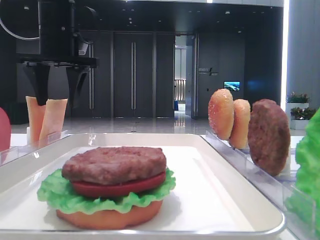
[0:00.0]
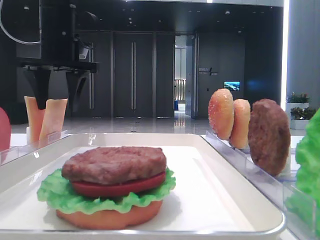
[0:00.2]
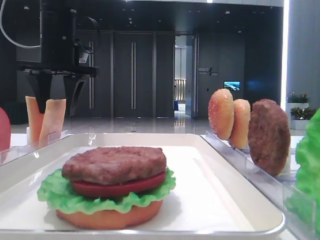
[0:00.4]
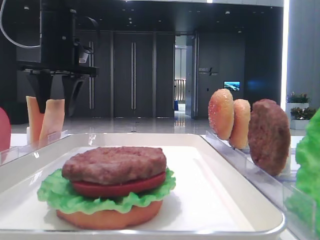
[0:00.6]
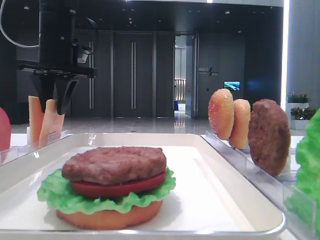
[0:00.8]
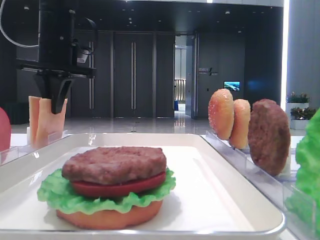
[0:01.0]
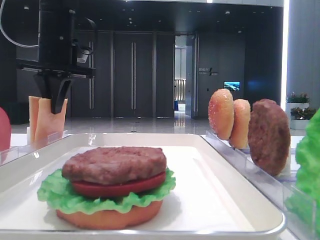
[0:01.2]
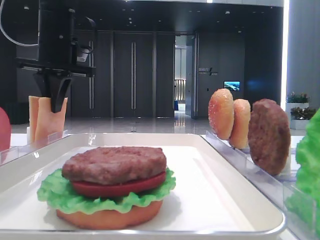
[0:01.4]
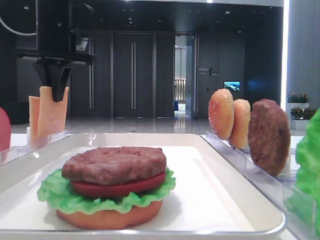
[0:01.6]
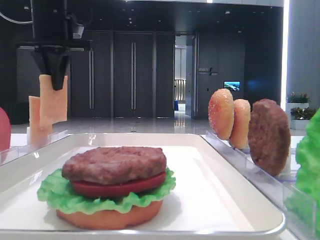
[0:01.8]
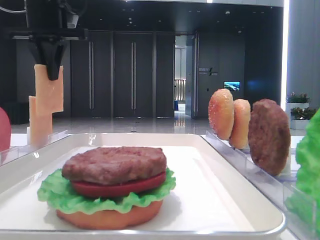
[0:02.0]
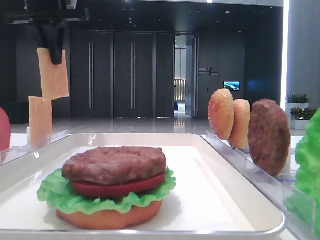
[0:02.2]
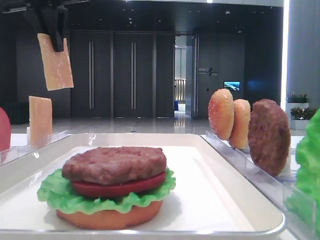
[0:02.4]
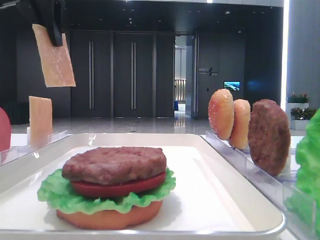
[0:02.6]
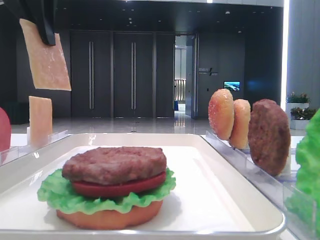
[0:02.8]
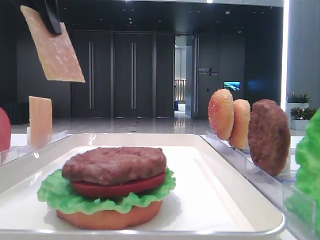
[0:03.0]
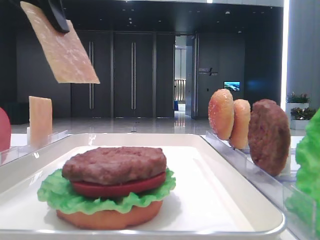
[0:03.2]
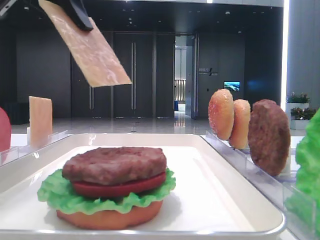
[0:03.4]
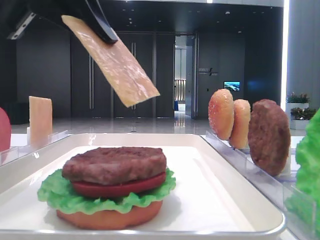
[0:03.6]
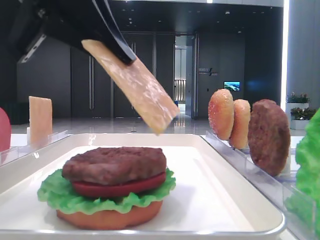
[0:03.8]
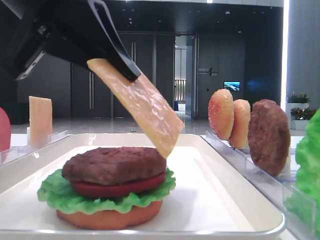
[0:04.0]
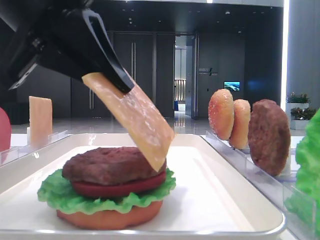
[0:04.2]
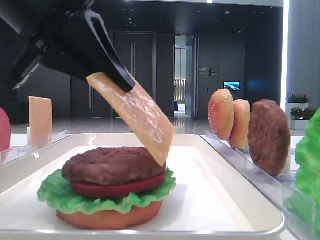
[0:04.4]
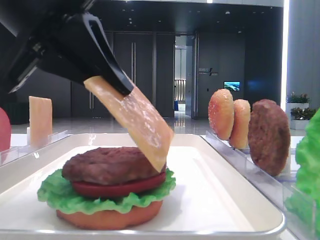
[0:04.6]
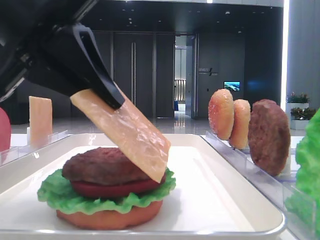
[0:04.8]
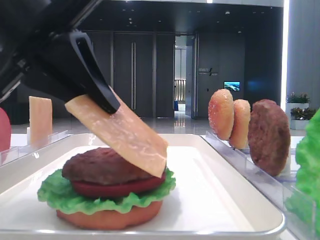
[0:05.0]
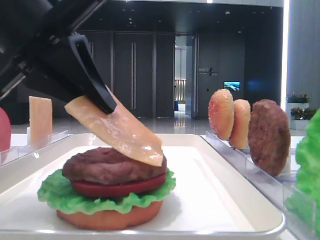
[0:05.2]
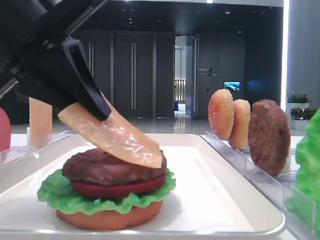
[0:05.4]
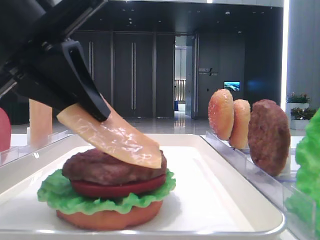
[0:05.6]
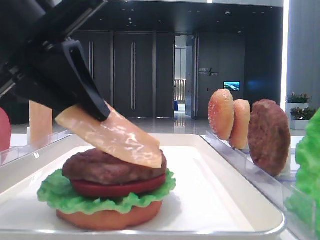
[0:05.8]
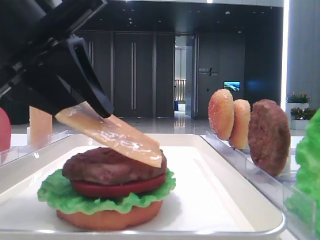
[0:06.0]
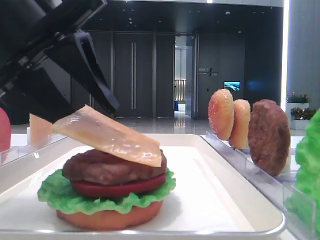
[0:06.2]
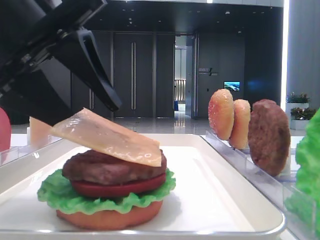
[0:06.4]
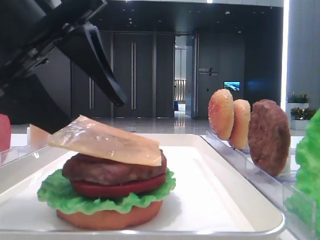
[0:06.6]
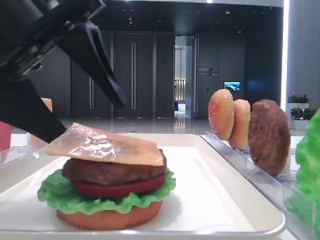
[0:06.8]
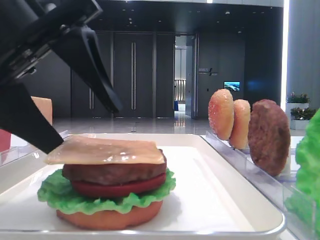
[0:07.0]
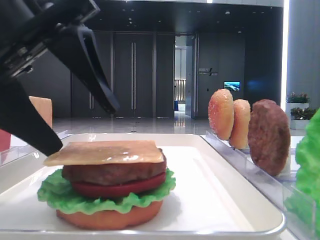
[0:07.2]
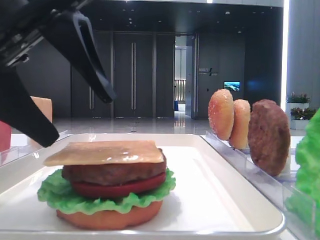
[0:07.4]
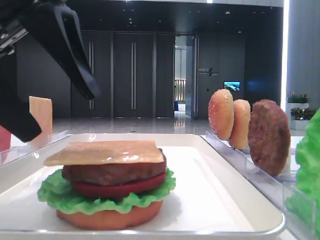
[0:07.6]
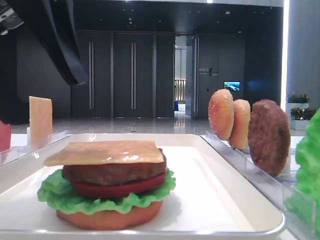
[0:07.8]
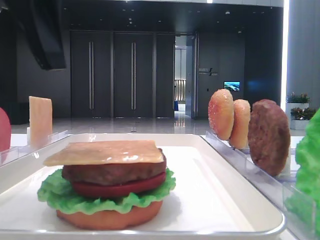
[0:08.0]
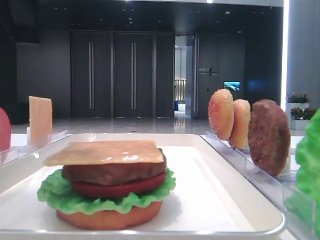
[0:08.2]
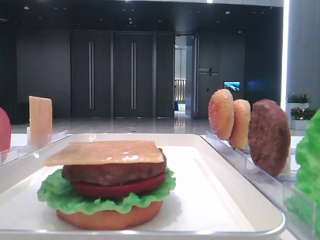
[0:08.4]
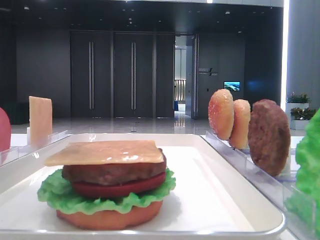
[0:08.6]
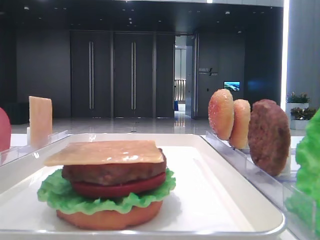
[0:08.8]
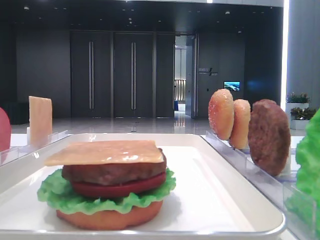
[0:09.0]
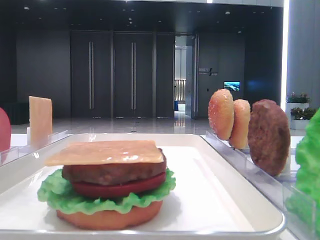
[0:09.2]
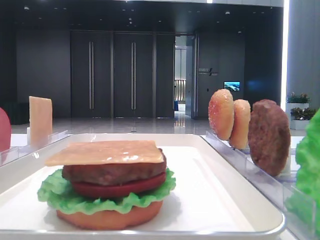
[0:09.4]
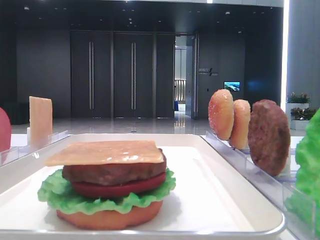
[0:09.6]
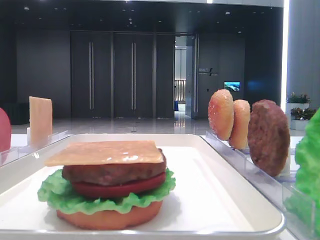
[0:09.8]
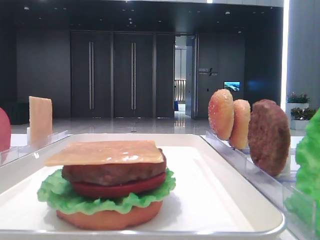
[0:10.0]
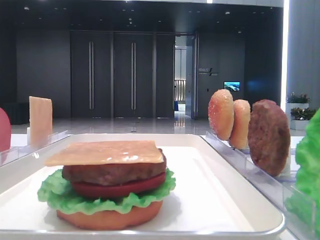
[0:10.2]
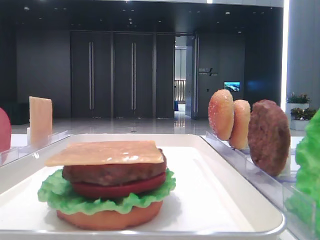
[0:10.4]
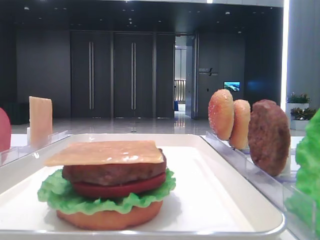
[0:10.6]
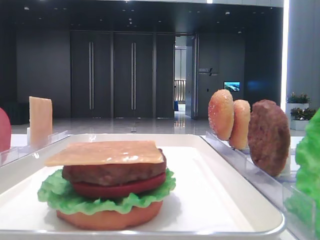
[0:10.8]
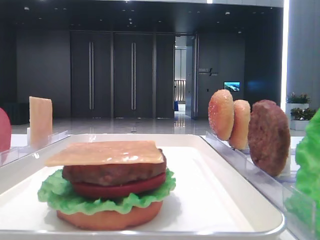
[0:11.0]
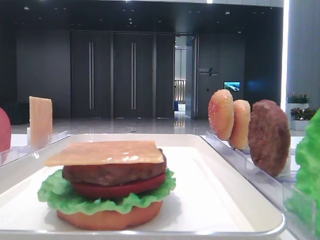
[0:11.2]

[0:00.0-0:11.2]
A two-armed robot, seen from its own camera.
Step, 0:01.4 to 0:07.0: Place the cheese slice on the patty with the left hand.
0:00.0 to 0:01.6: The left gripper closes up.
0:01.6 to 0:03.2: The left gripper travels backward and upward by approximately 15 cm.
0:03.2 to 0:04.8: The left gripper goes about 15 cm downward, backward and to the right.
0:04.8 to 0:06.4: The left gripper opens its fingers.
0:06.4 to 0:08.0: The left gripper moves upward, roughly 5 cm, and opens its fingers.
0:08.0 to 0:09.6: The left gripper goes approximately 20 cm to the left and upward.

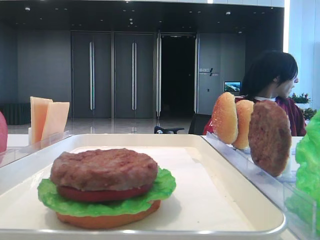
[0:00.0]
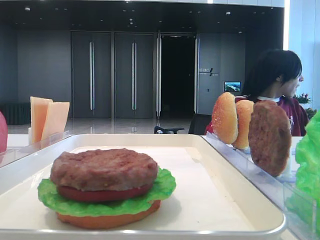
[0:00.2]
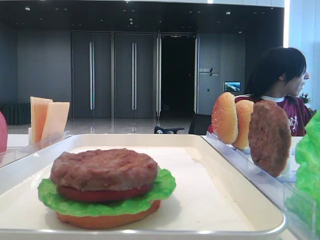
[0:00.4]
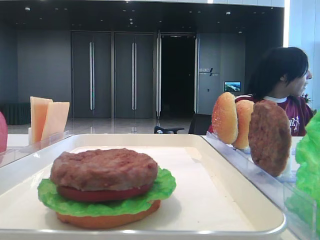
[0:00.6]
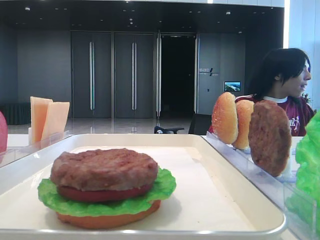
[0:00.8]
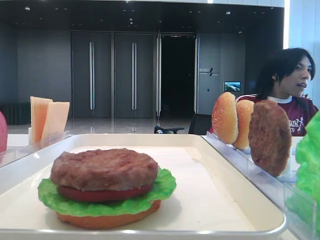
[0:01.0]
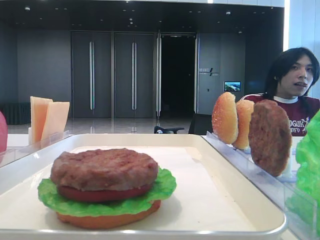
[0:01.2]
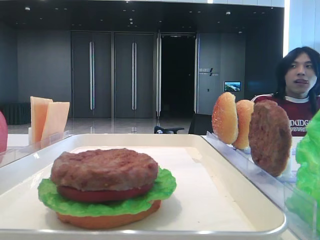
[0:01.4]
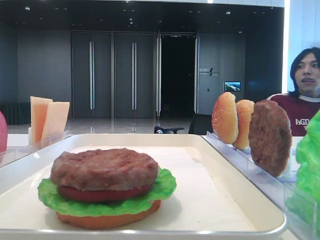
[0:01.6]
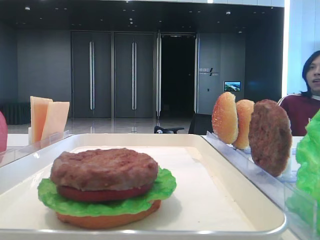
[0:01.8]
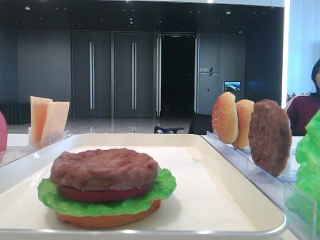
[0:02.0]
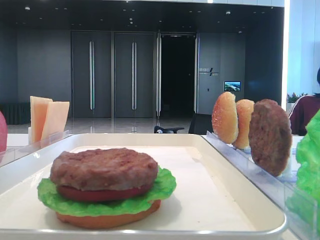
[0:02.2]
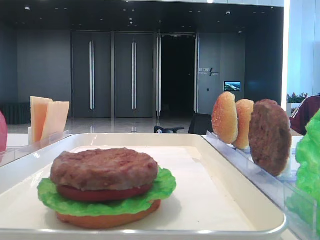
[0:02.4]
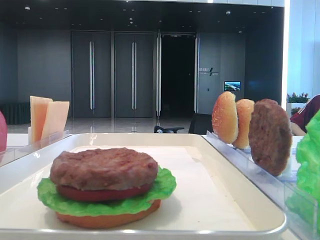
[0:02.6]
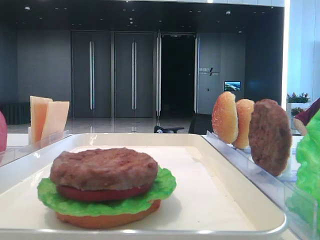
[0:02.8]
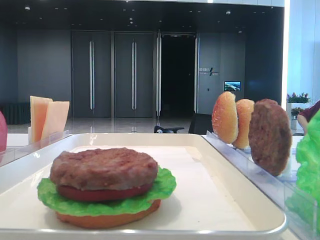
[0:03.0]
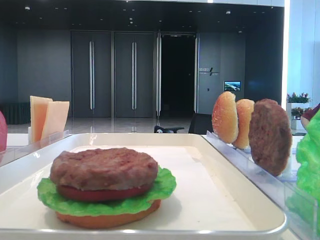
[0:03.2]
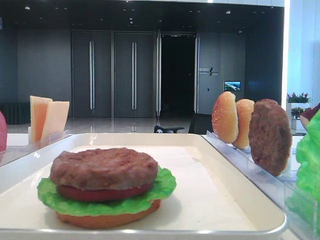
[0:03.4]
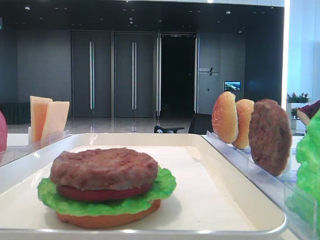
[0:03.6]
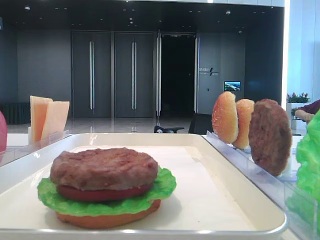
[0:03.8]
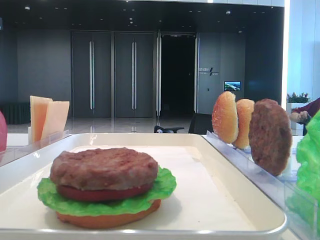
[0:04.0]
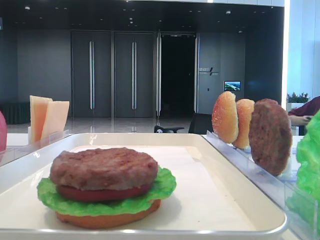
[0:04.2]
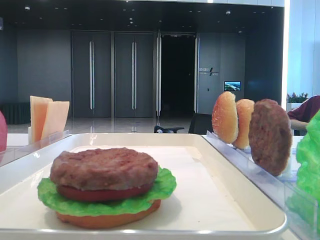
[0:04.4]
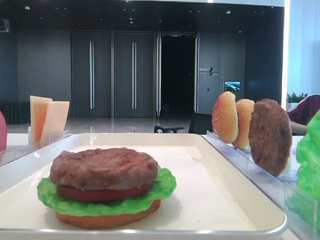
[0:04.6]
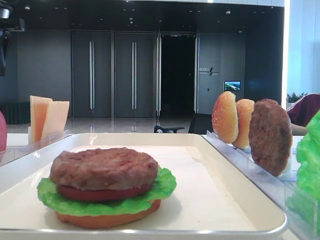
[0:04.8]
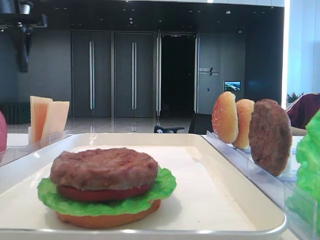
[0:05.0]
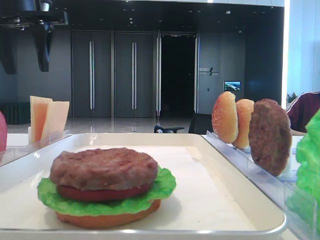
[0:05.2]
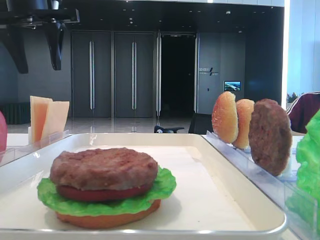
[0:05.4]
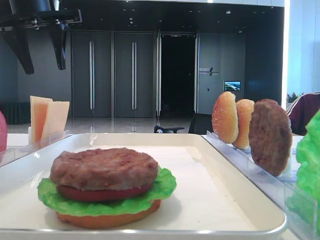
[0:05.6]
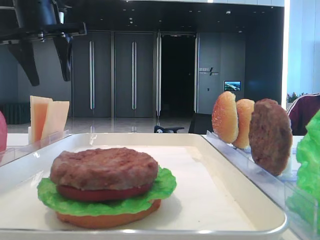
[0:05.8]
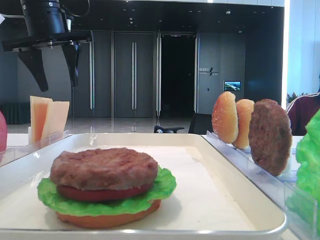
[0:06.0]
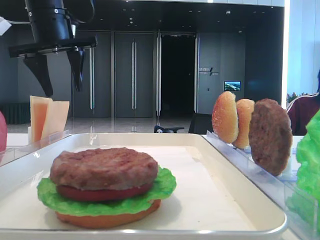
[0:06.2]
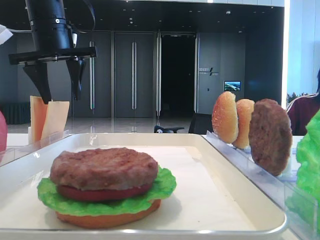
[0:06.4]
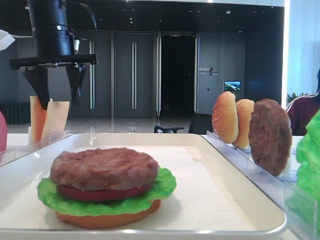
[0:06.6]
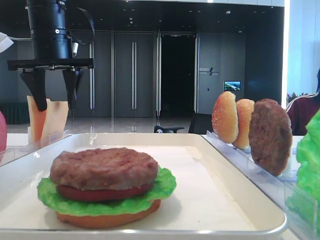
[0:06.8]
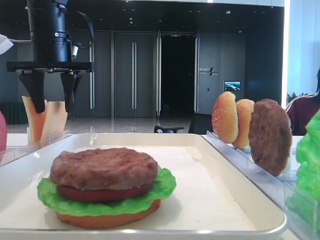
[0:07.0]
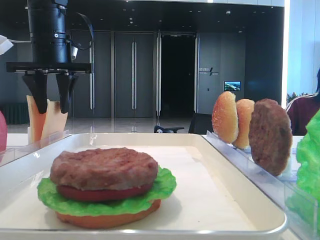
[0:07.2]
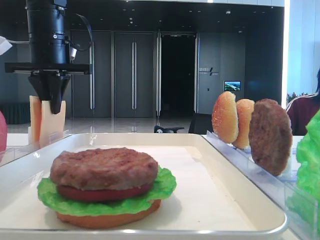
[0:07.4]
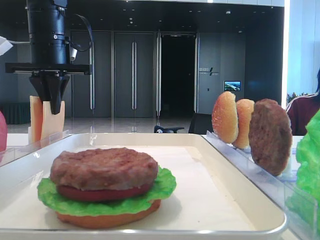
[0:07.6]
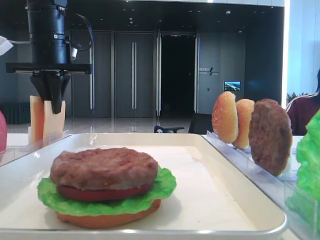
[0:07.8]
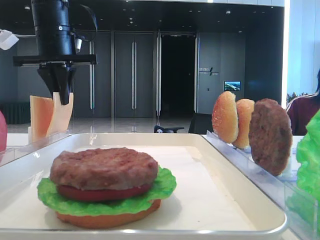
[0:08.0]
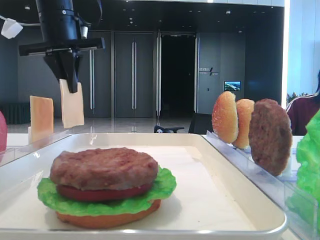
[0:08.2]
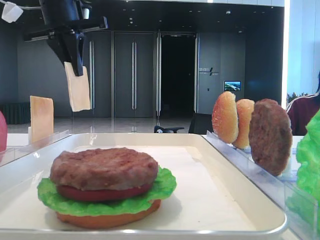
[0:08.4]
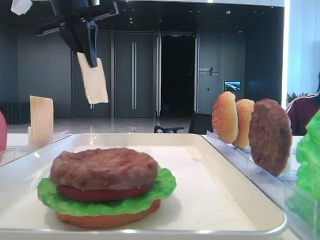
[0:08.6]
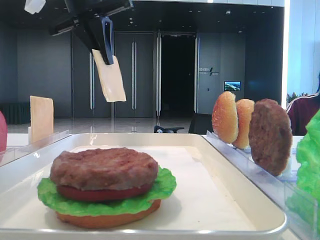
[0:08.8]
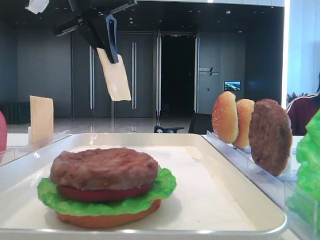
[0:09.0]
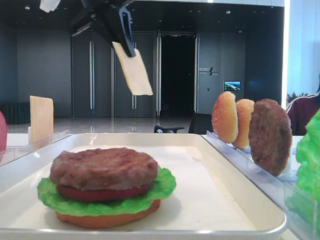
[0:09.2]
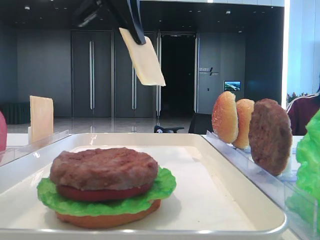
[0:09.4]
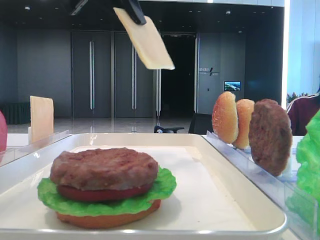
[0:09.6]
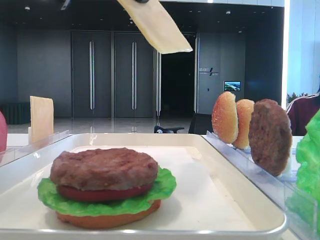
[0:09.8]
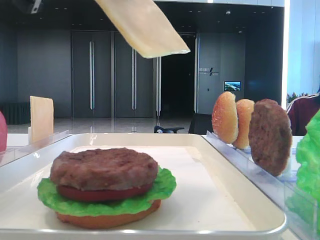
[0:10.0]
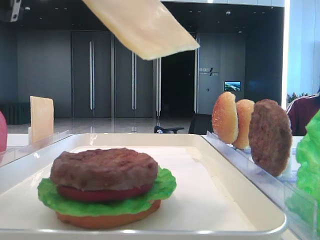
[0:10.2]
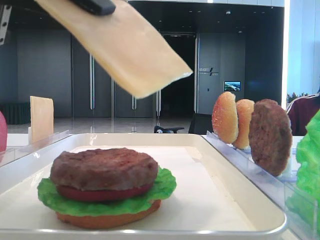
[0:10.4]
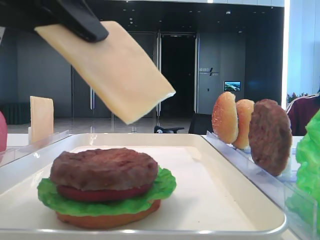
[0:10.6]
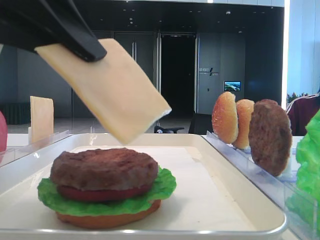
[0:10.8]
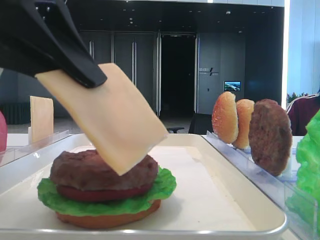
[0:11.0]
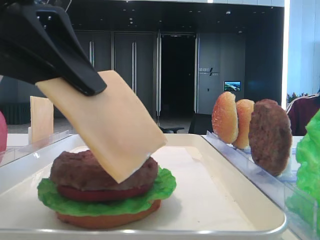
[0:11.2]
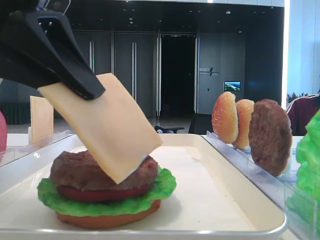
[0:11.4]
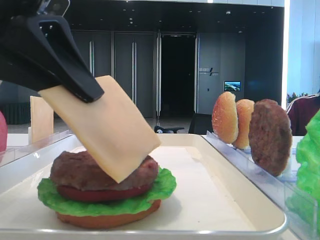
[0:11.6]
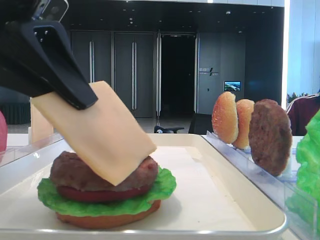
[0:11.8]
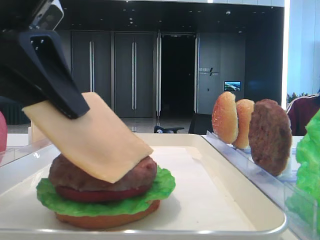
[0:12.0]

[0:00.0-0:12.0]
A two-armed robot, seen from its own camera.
Step, 0:00.0 to 0:07.4: Pick up the cheese slice with the left hand.
0:01.6 to 0:03.0: The left gripper shifts approximately 30 cm forward.
0:04.4 to 0:06.0: The left gripper moves to the right, some 15 cm.
0:06.0 to 0:07.6: The left gripper closes up.
0:07.6 to 0:09.0: The left gripper heads upward and to the right, covering roughly 10 cm.
0:09.0 to 0:10.4: The left gripper heads backward, covering some 20 cm.
